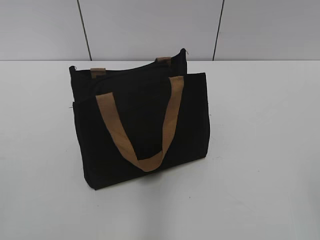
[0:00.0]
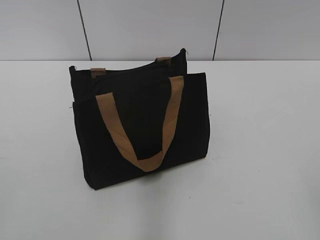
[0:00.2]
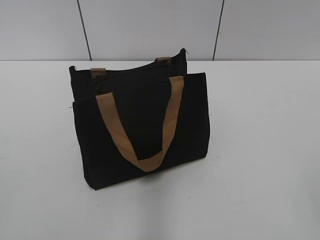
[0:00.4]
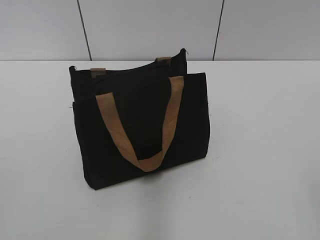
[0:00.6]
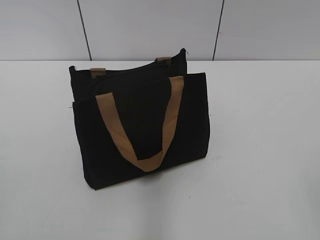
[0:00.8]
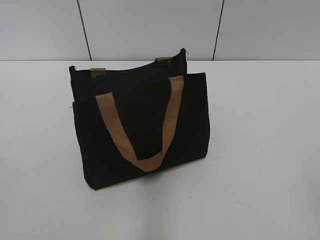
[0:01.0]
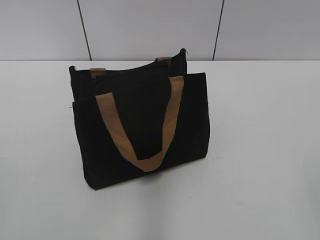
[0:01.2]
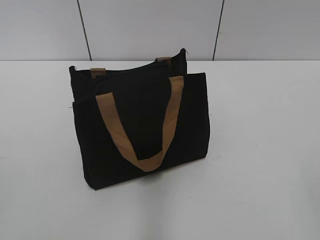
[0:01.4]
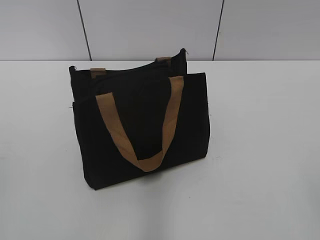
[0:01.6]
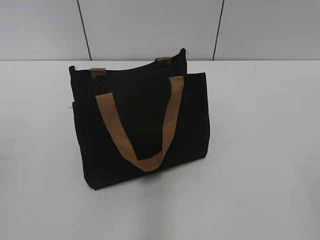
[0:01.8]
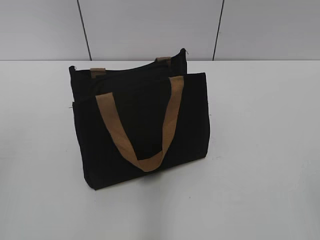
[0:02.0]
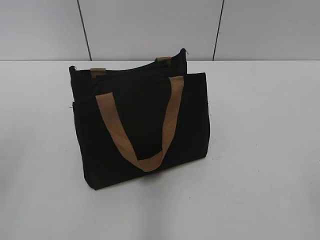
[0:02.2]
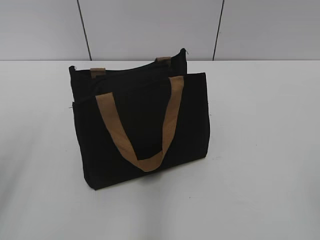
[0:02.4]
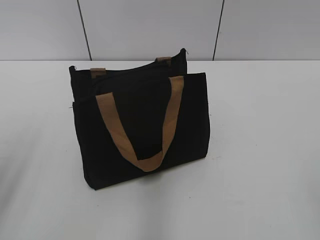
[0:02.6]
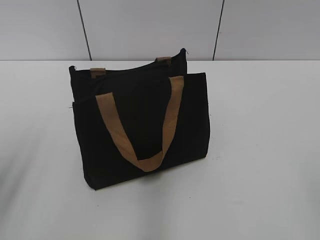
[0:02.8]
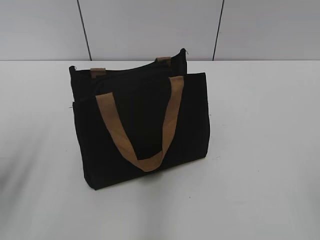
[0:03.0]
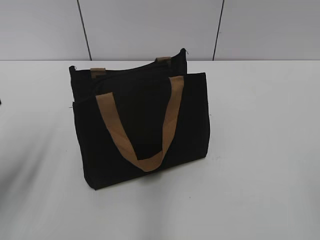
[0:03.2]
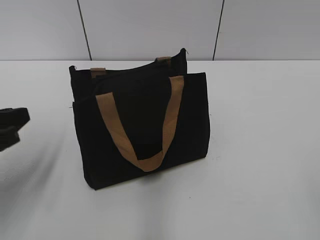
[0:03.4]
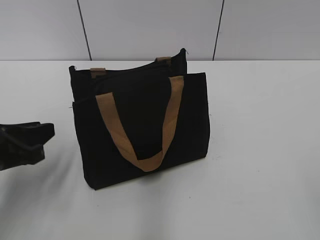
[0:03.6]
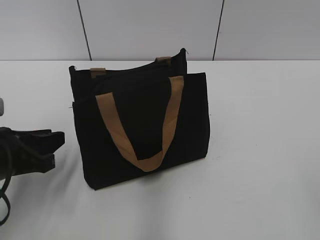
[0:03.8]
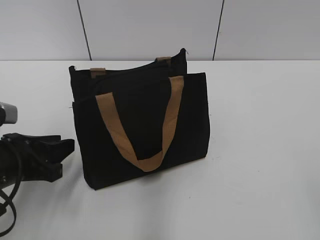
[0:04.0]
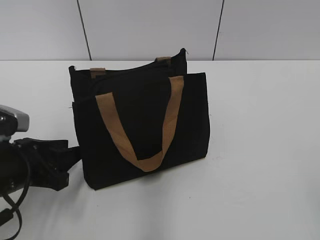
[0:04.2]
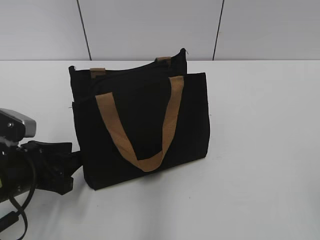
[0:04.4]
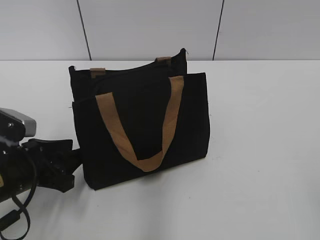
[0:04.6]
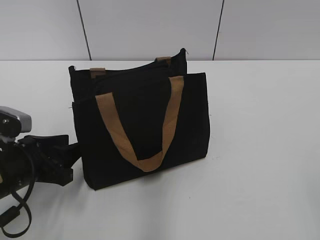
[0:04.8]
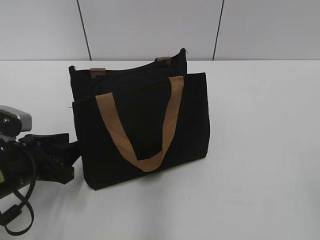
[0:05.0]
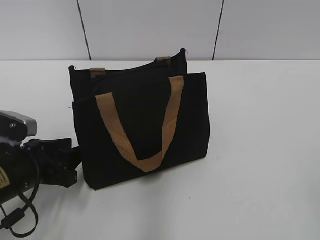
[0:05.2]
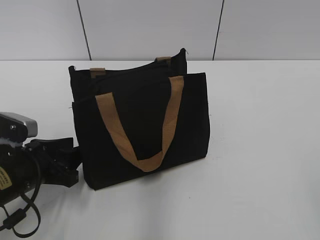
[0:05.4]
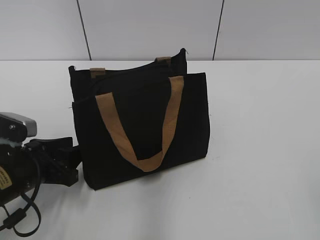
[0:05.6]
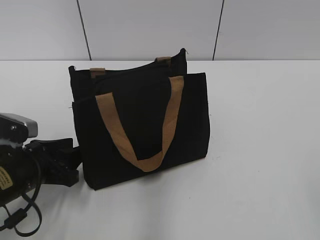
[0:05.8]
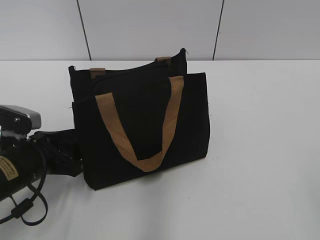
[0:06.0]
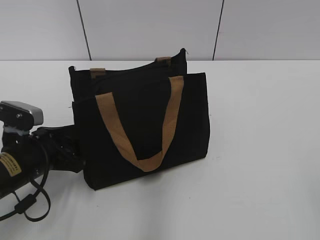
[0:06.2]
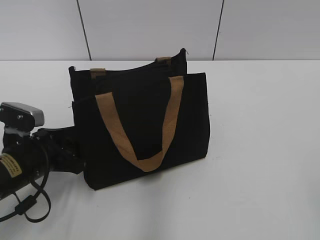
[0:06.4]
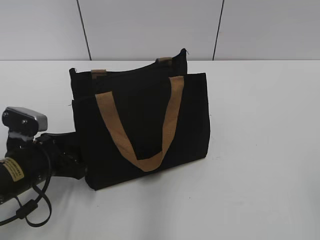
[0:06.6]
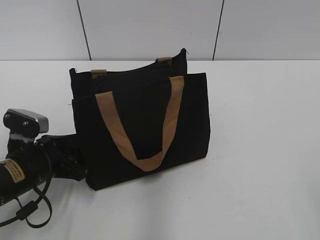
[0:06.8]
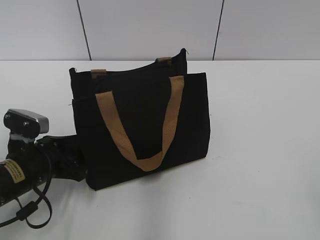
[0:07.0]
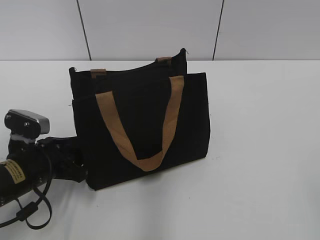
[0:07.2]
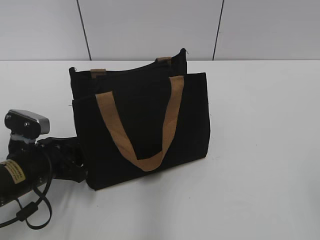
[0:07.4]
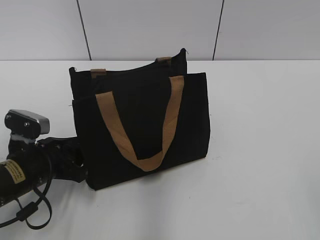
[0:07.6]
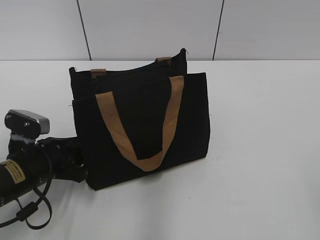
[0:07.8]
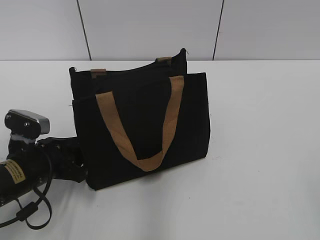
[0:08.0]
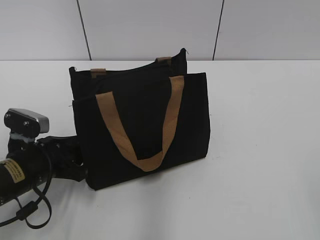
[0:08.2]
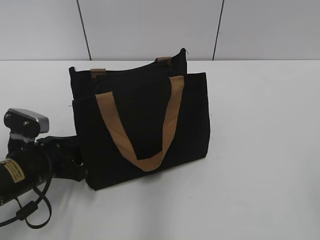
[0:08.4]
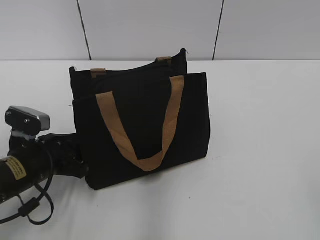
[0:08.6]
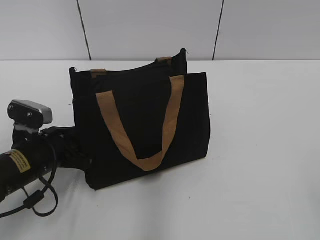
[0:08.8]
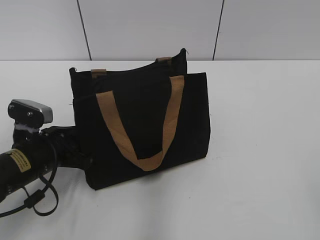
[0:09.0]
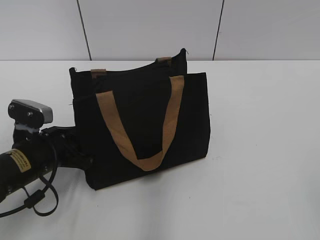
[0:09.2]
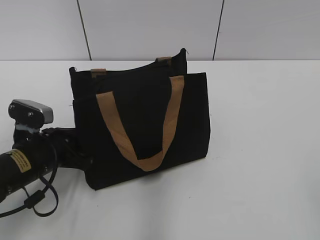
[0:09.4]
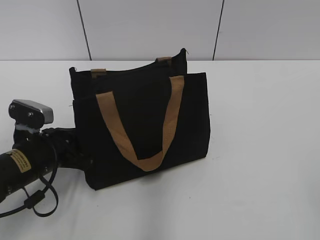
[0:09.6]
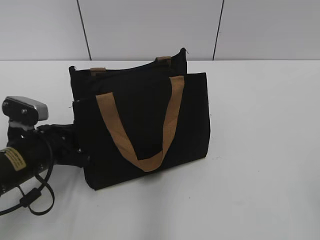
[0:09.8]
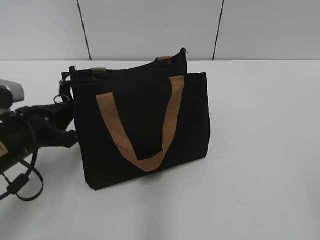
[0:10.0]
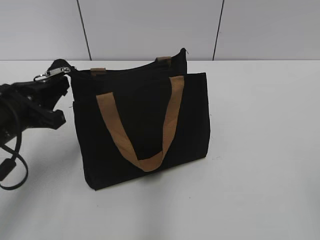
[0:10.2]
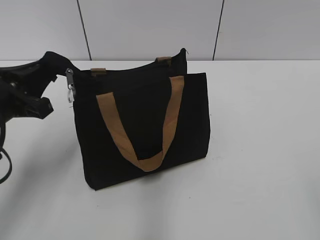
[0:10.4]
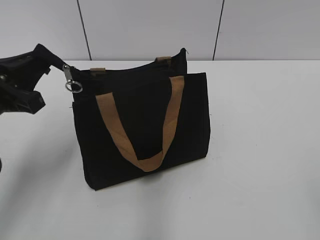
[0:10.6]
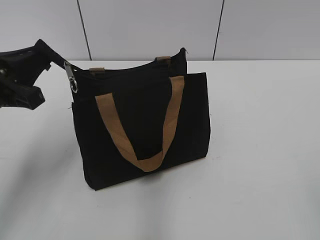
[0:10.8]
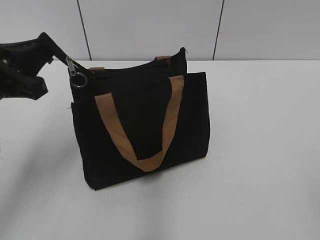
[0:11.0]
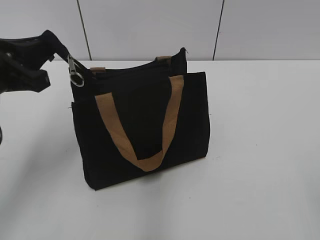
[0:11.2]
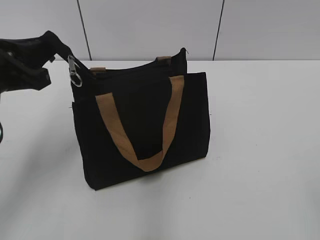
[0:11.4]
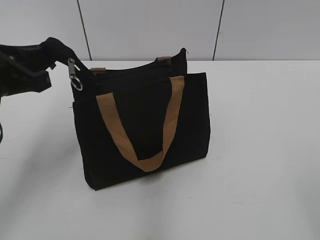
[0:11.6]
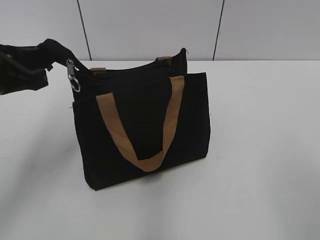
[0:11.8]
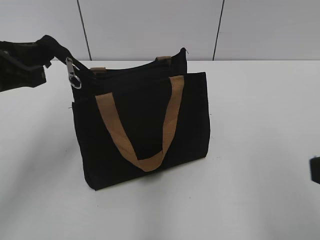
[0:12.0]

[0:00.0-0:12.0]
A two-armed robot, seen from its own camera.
0:01.6 to 0:03.0: The left gripper travels forward and downward by roughly 15 cm.
0:03.0 to 0:04.4: The left gripper moves downward, to the right and forward, roughly 15 cm.
0:04.4 to 0:06.0: There are only small adjustments of the grippers.
0:06.0 to 0:07.6: The left gripper closes up.
0:07.6 to 0:09.0: The grippers stay close to where they were, moving slightly.
0:09.0 to 0:10.4: The left gripper goes approximately 10 cm upward, and closes up.
0:10.4 to 0:12.0: The left gripper goes about 5 cm upward; the right gripper is displaced forward by approximately 10 cm.

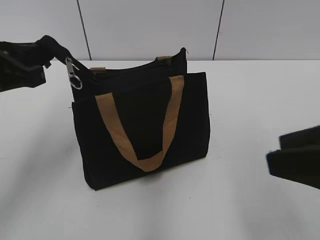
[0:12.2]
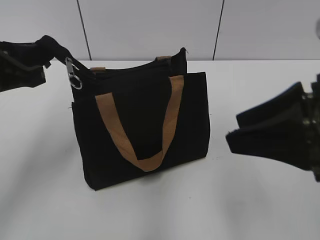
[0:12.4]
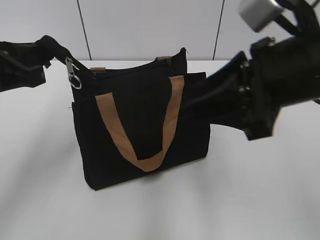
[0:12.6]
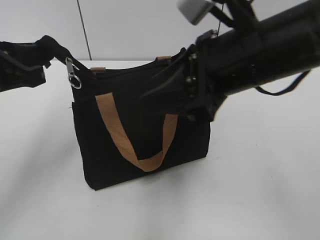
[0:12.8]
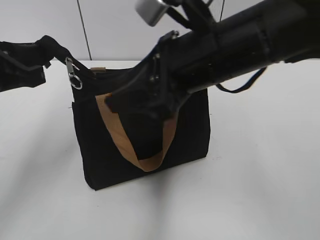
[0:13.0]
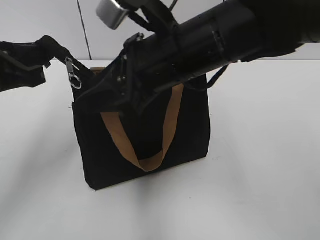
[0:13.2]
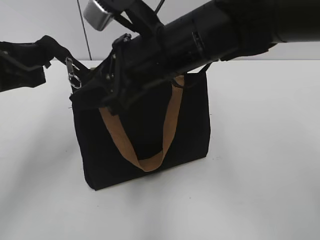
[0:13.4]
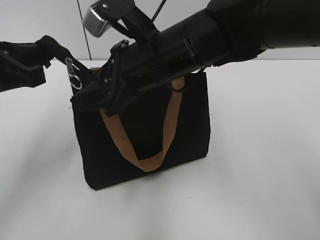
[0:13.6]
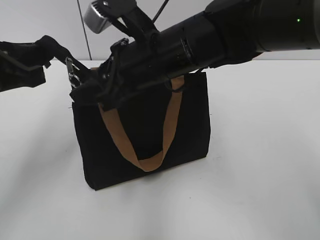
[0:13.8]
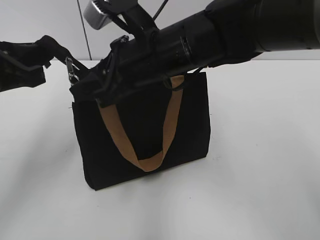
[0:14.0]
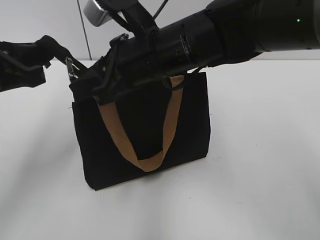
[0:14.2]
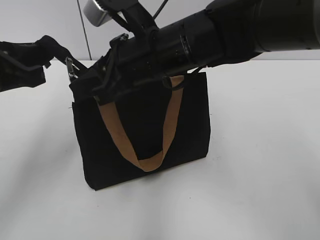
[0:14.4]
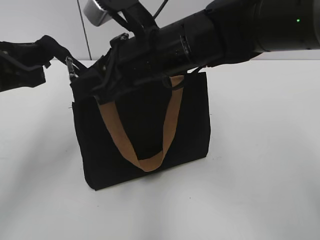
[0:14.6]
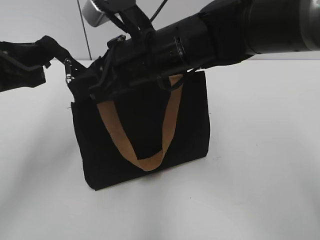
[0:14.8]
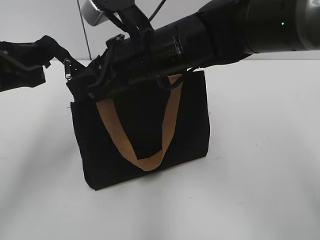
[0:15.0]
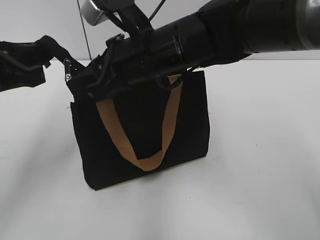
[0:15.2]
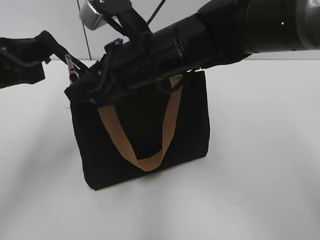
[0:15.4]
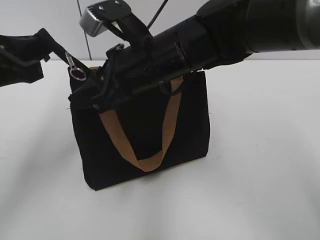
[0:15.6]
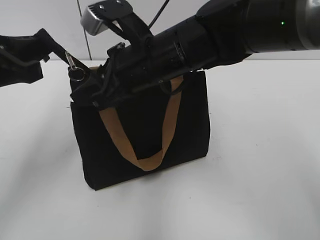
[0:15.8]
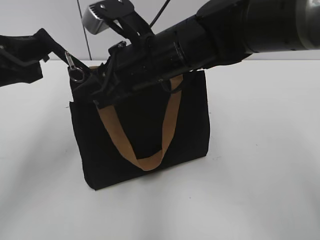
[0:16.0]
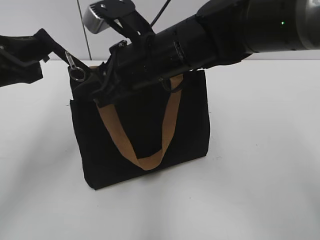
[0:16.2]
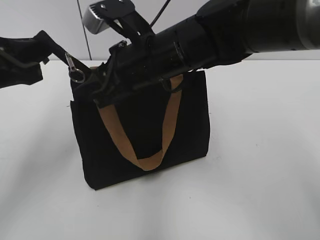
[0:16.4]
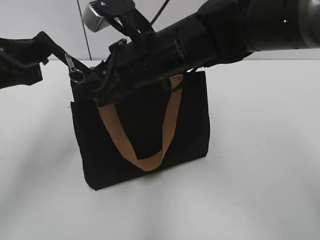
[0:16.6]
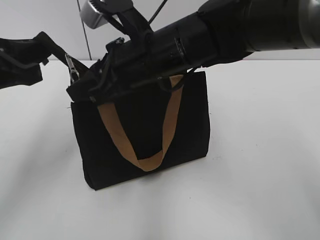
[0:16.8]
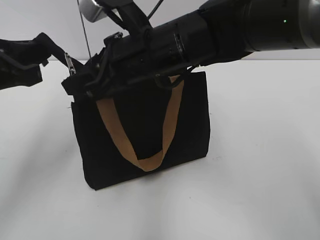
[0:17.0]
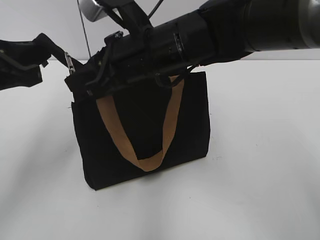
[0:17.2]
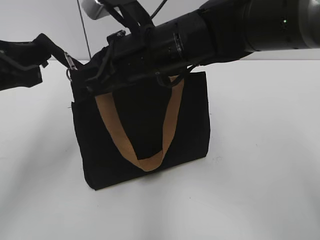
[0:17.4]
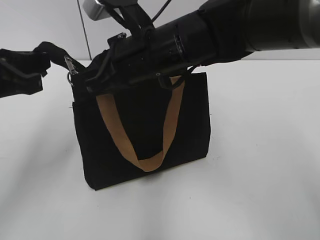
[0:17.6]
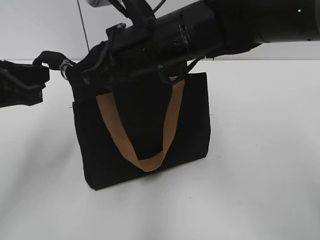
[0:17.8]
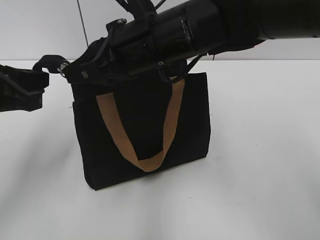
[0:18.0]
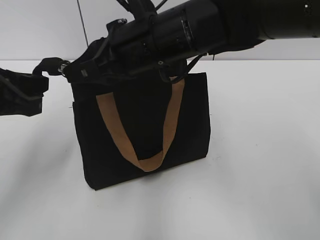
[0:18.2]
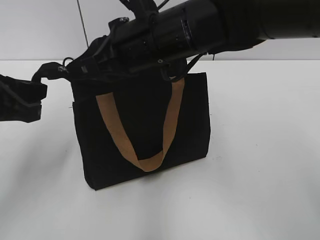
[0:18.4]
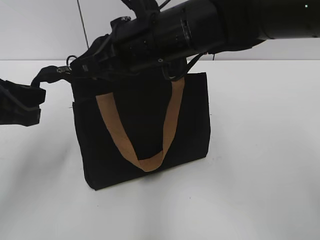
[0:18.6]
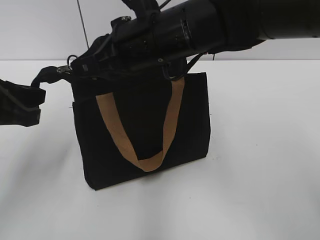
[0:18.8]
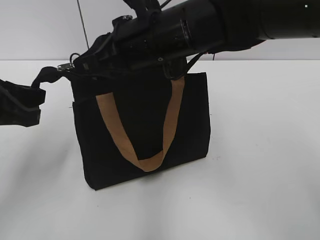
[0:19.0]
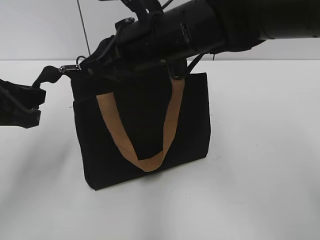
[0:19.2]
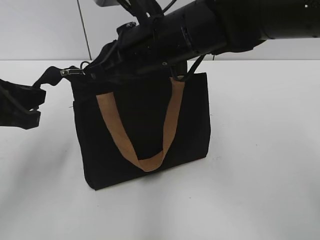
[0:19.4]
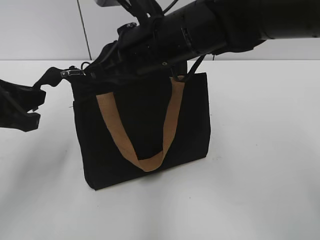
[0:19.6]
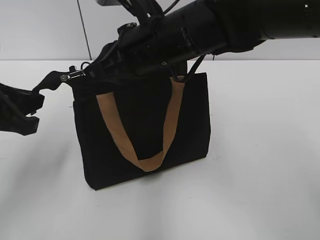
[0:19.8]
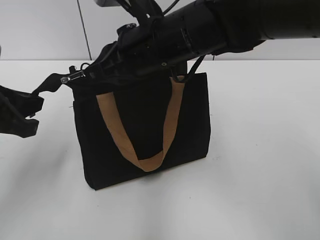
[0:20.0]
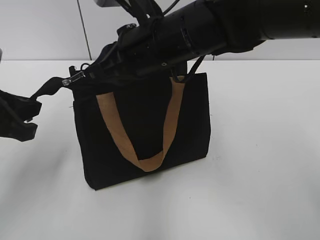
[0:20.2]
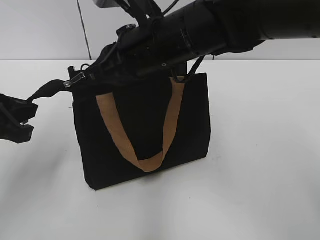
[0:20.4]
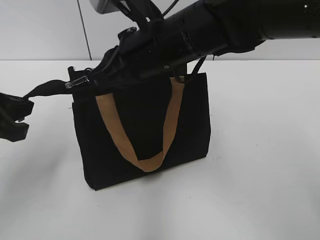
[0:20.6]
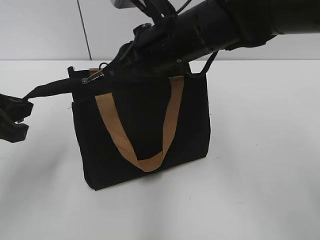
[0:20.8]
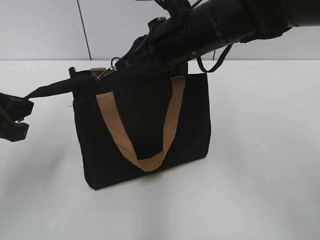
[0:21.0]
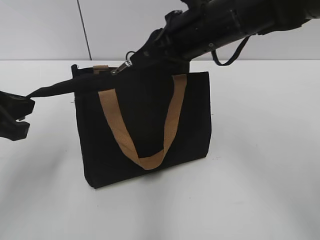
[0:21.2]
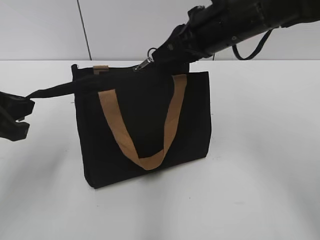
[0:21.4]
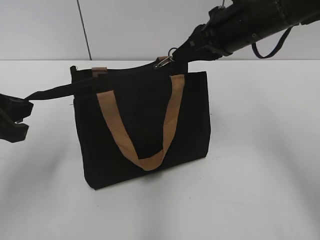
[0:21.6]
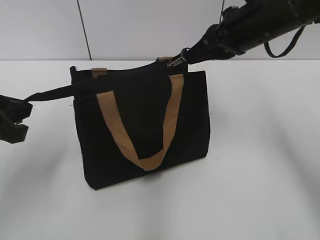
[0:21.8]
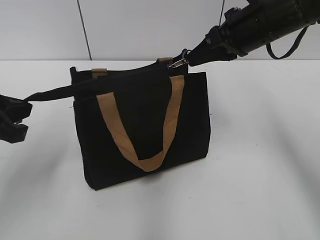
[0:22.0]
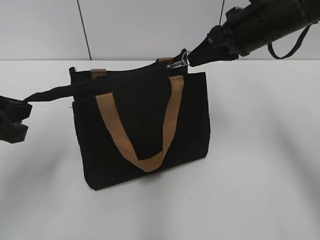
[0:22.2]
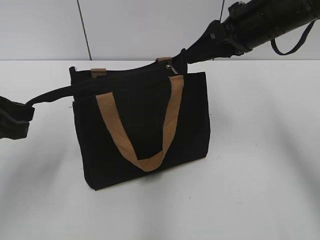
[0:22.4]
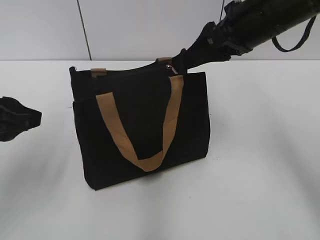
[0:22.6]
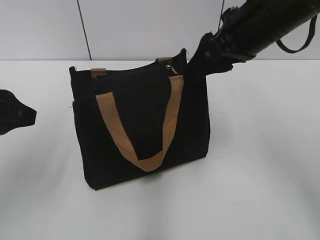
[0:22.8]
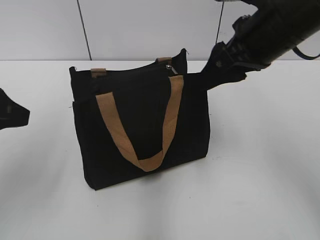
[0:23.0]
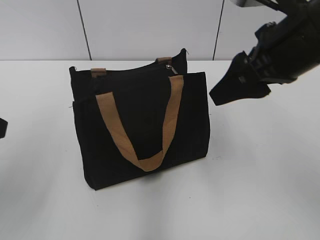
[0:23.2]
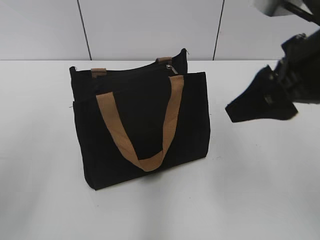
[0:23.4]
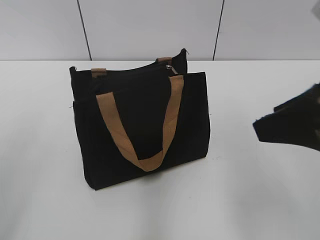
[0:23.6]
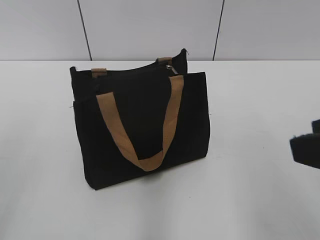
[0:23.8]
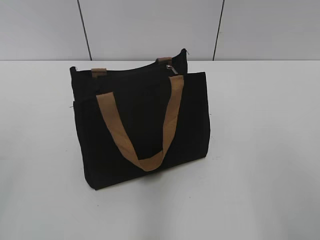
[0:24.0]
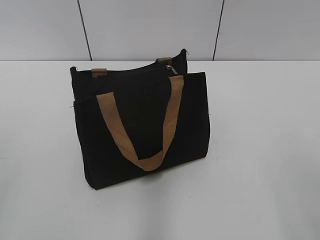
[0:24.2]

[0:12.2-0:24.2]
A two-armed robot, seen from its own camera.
Step, 0:12.2 to 0:22.2: Zip up the bag with your right hand.
0:12.2 to 0:13.8: The right gripper is displaced to the left and forward by some 25 cm.
0:13.8 to 0:15.2: Both grippers stay put.
0:15.2 to 0:16.6: The grippers stay close to where they were, moving slightly.
0:16.6 to 0:18.2: The right gripper closes its fingers.
0:18.2 to 0:19.8: The grippers move only a little.
0:19.8 to 0:21.2: The right gripper moves to the right, some 5 cm.
0:21.2 to 0:22.6: The right gripper travels to the right by some 10 cm, and opens, while the left gripper opens up.
0:22.6 to 0:24.2: The right gripper travels backward by some 30 cm, while the left gripper heads backward, upward and to the left, covering roughly 20 cm.
